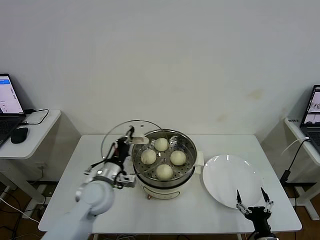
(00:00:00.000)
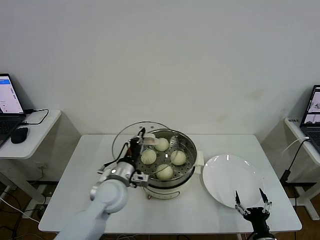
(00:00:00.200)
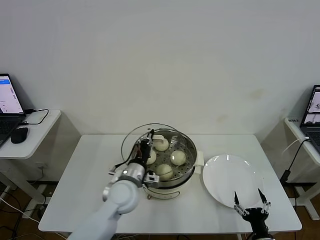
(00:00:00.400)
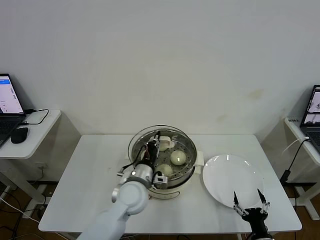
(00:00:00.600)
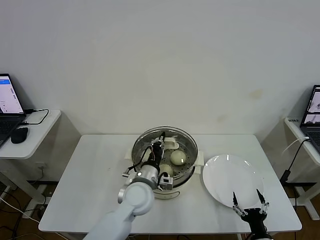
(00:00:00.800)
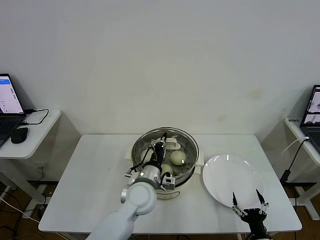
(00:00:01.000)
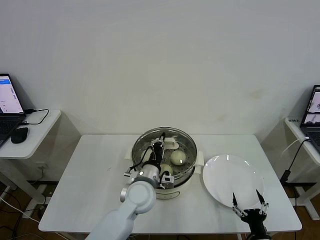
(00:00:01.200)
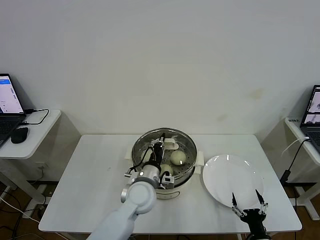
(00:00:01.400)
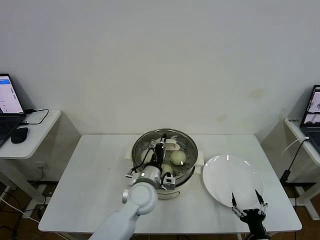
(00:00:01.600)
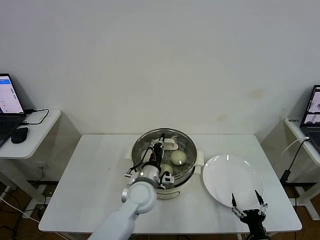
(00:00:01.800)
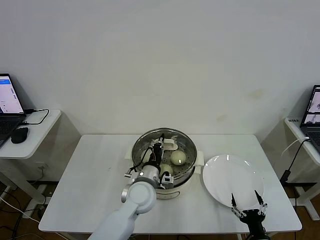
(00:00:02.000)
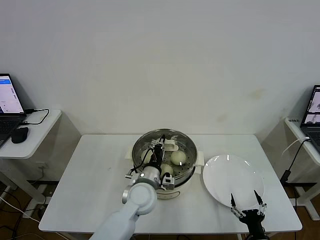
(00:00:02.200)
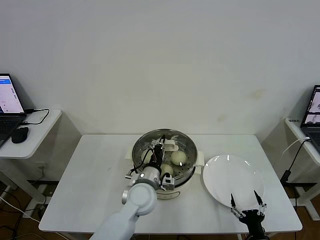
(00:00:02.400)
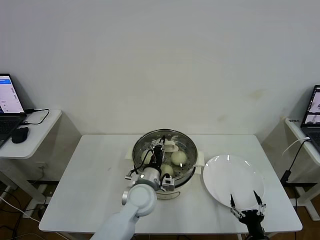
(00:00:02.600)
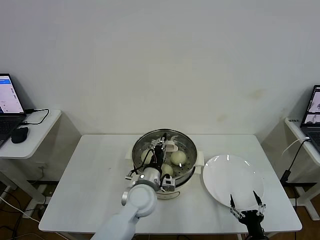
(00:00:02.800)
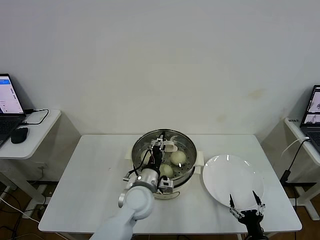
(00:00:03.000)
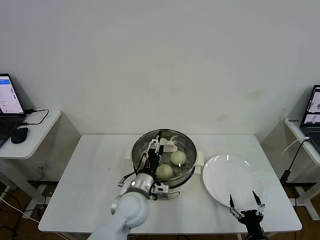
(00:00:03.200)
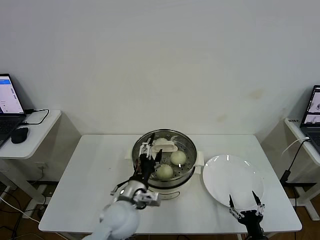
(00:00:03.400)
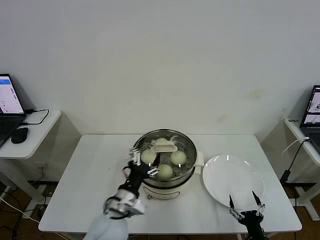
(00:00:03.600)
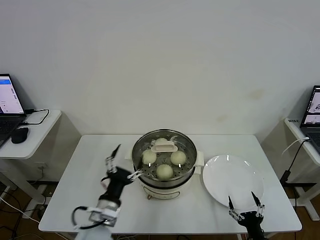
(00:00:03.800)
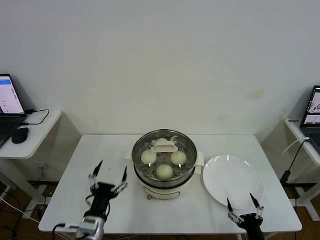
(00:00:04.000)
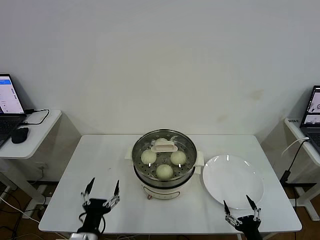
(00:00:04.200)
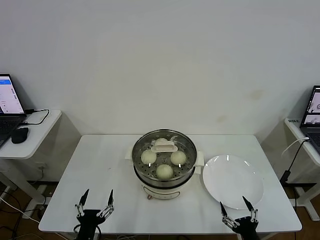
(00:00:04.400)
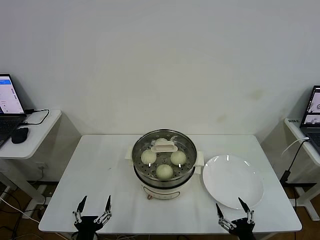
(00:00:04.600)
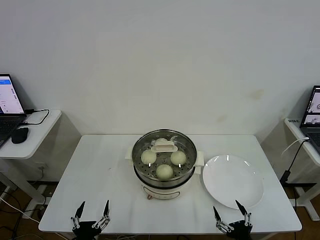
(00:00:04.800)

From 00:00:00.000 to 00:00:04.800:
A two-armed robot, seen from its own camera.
Task of the whole recording: take steamed baozi put them in steamer then cover it.
Step, from 00:00:00.000 to 00:00:03.200: Place the pot lid on the steamer with left gripper.
From 00:00:00.000 to 00:00:01.600: The left gripper is displaced to the right by some 15 cm.
From 00:00:01.600 to 00:00:03.200: The left gripper opens its fingers.
From 00:00:03.200 to 00:00:04.800: The right gripper is displaced upward by about 5 cm; the left gripper moves backward and to the left, about 25 cm.
